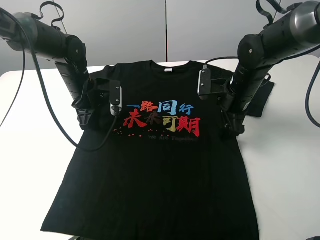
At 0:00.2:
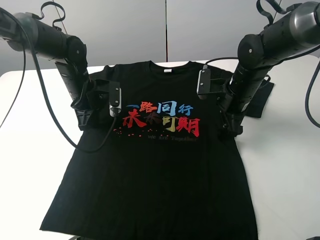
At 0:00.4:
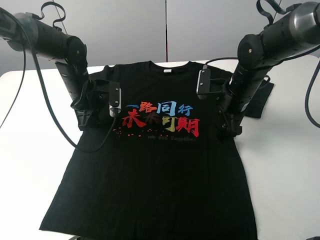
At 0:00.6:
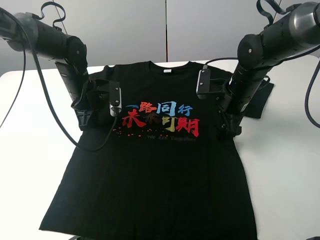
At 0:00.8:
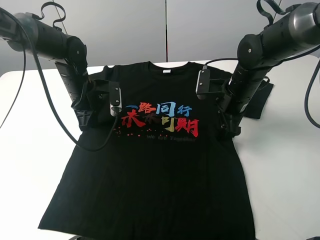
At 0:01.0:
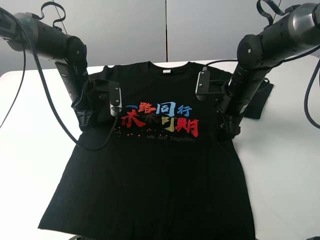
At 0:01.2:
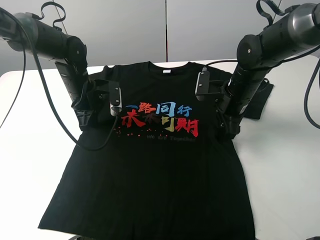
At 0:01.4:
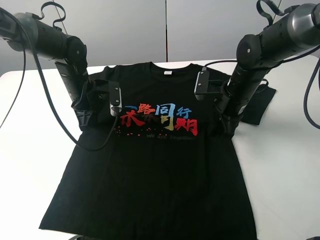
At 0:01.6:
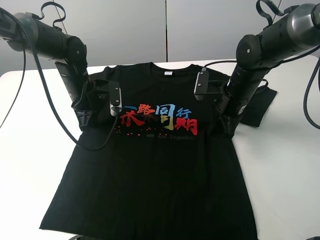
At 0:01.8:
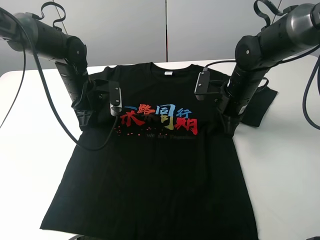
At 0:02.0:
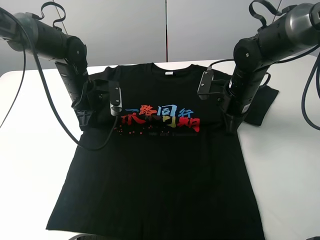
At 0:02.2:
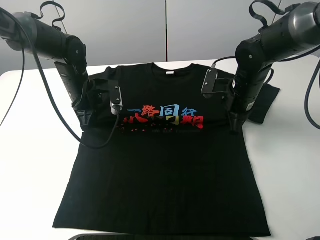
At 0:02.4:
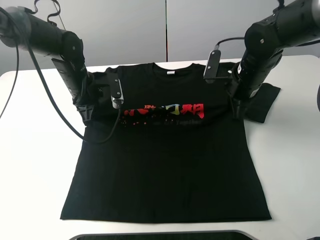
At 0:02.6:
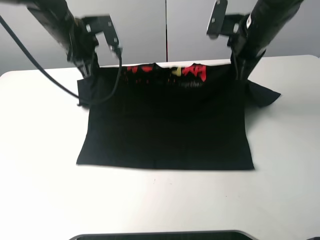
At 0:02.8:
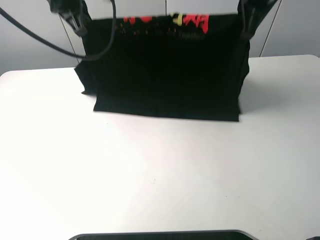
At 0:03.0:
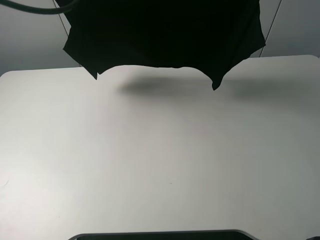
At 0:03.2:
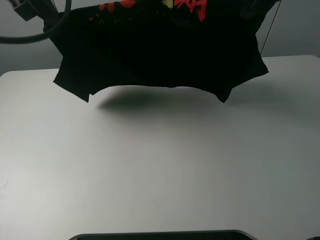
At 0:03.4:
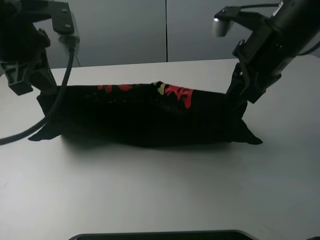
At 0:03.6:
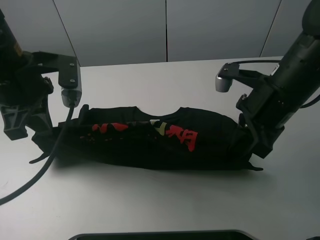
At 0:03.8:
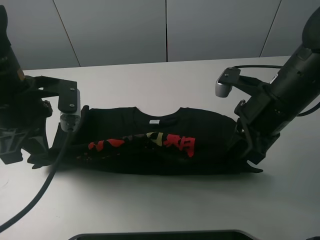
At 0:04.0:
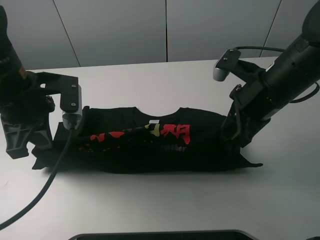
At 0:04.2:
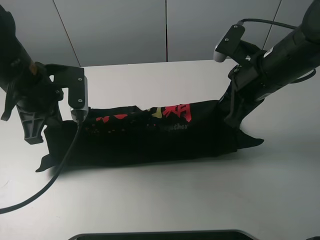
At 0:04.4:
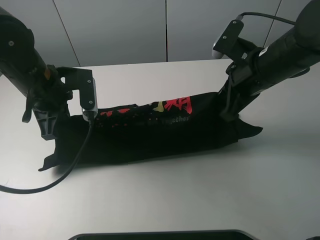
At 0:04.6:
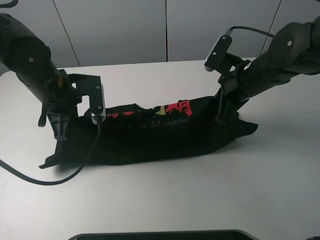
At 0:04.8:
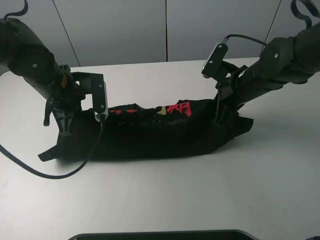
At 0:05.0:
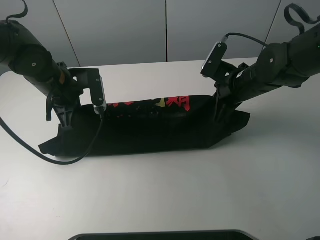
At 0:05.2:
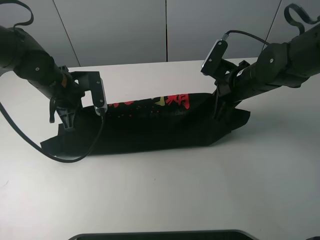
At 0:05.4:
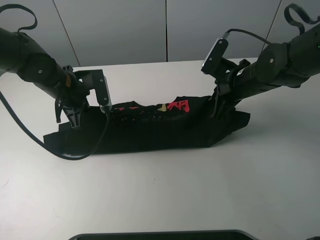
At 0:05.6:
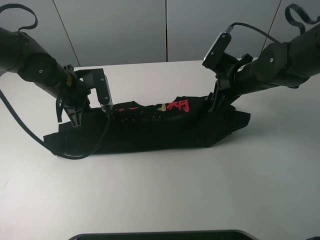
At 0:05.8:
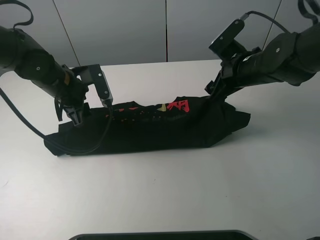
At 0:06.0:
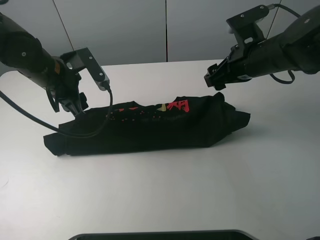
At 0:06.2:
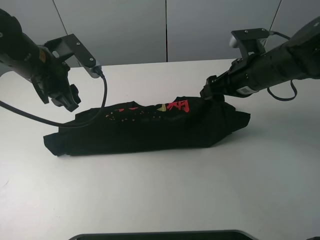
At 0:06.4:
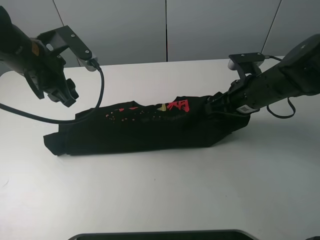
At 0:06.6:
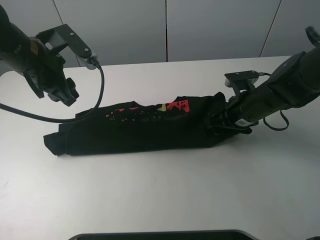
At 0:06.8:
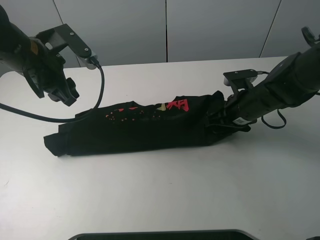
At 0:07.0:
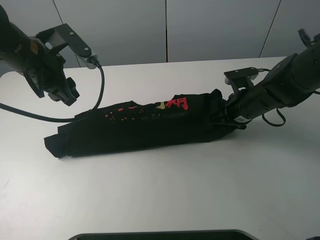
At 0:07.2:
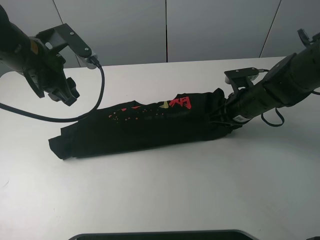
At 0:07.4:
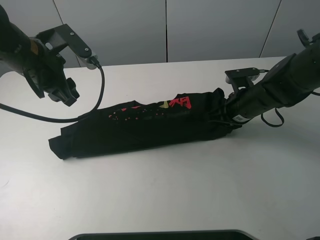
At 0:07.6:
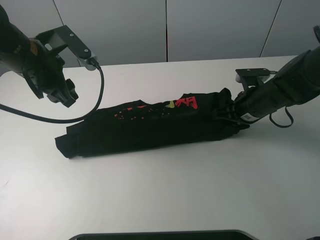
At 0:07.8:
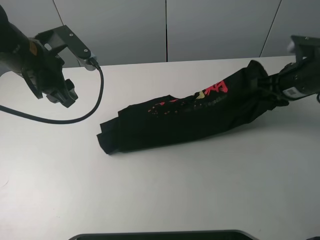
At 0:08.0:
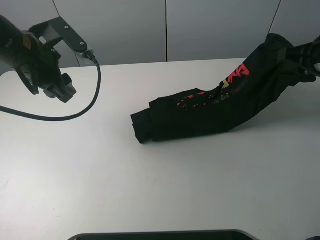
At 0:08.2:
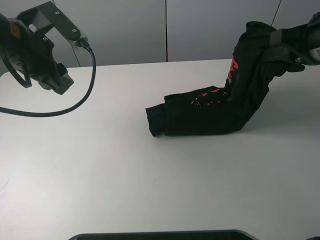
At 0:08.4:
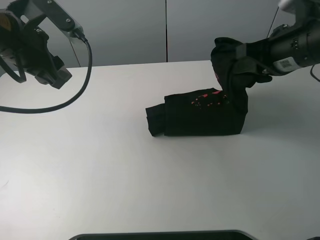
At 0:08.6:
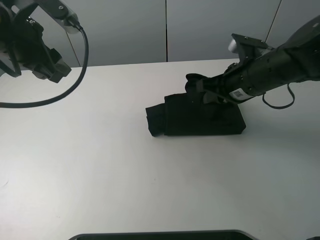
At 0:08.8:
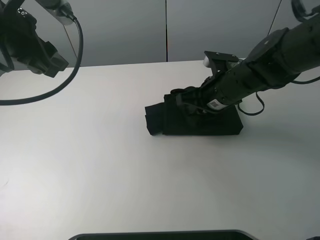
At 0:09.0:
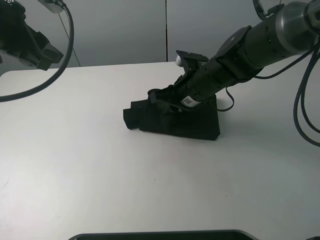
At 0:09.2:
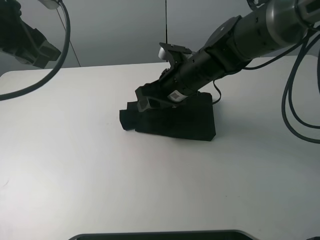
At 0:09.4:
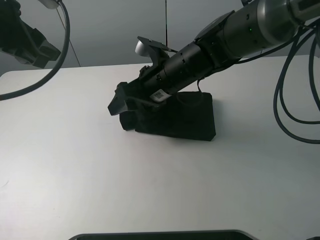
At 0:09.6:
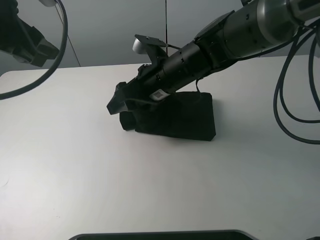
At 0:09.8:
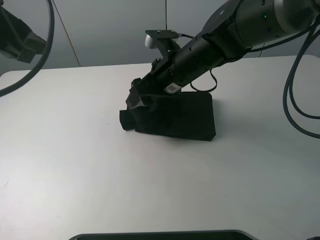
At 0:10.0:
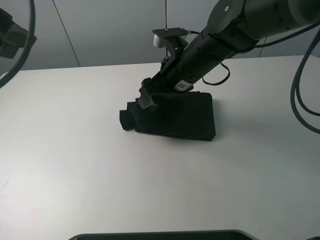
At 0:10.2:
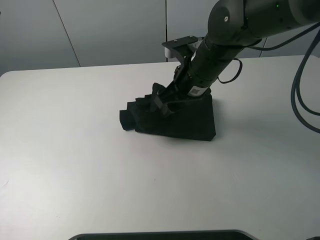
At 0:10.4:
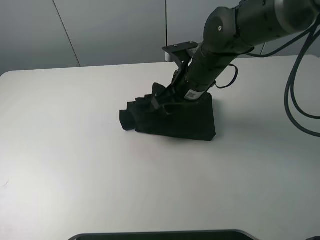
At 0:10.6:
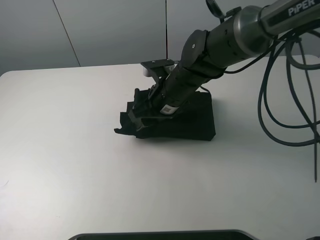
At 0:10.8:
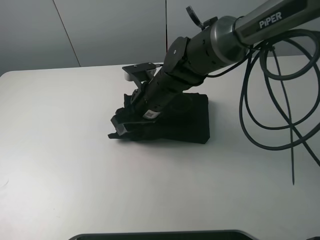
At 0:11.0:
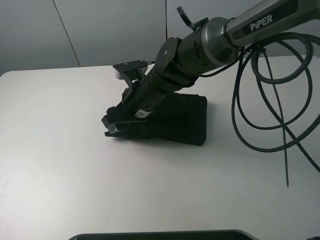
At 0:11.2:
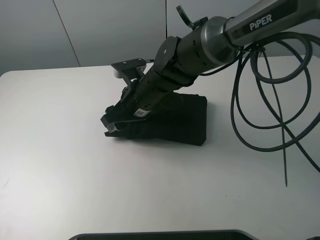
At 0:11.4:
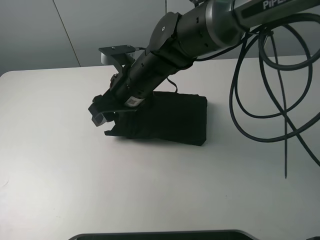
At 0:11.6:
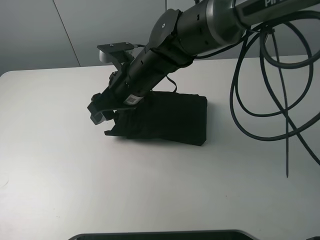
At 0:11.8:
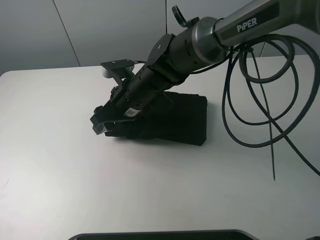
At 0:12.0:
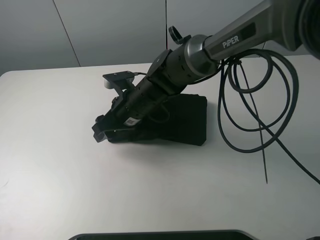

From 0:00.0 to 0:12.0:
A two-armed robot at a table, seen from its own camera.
Task of the whole recording: fold the clothes on the table.
Step, from 0:01.8 to 0:05.6: Fold the black T-shirt downward with the left gripper.
Step, from 0:06.0 to 0:07.4: Grasp the black T-shirt with the right gripper.
Step, from 0:07.6 to 0:11.2: Fold the black T-shirt from right to left with right gripper.
From 0:00.0 to 0:01.6: The right gripper closes, while the left gripper closes up.
From 0:01.6 to 0:03.0: Both grippers move upward, approximately 30 cm.
From 0:03.0 to 0:04.4: The grippers both shift downward by some 20 cm.
From 0:04.4 to 0:06.0: The right gripper opens up. Meanwhile the left gripper opens up.
From 0:06.0 to 0:07.6: The right gripper moves downward, approximately 10 cm, and closes its fingers.
From 0:07.6 to 0:09.0: The left gripper shifts approximately 10 cm upward, while the right gripper heads to the left, covering about 15 cm.
From 0:09.0 to 0:10.4: The left gripper goes about 10 cm upward, backward and to the left. The right gripper opens up.
From 0:10.4 to 0:12.0: The right gripper shifts about 15 cm to the left and downward.

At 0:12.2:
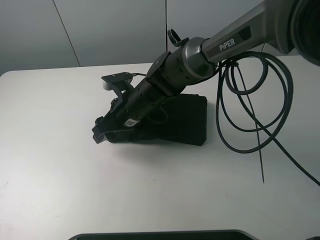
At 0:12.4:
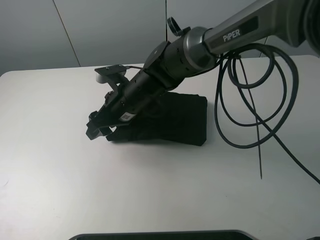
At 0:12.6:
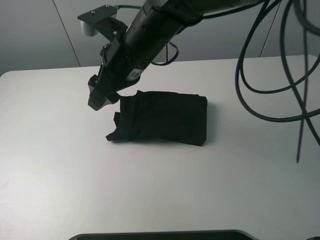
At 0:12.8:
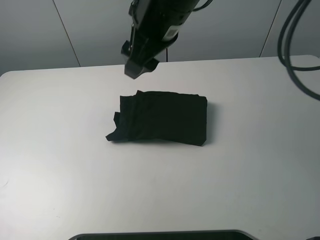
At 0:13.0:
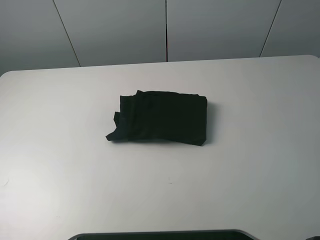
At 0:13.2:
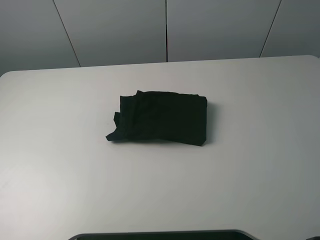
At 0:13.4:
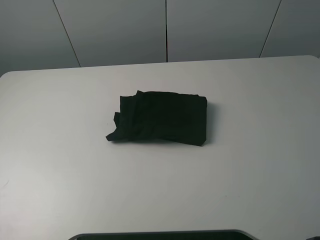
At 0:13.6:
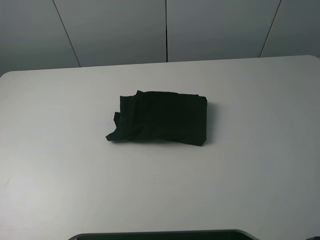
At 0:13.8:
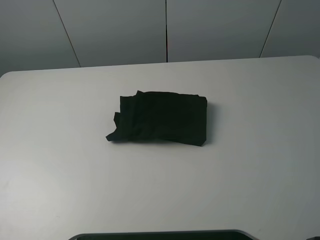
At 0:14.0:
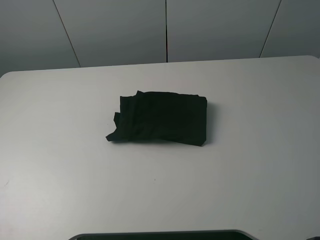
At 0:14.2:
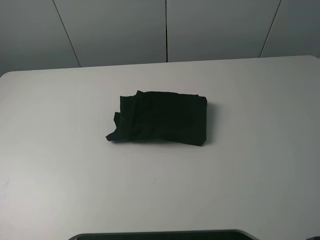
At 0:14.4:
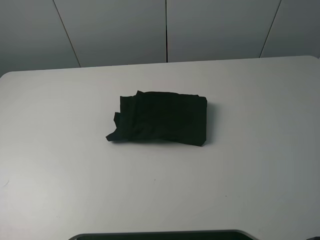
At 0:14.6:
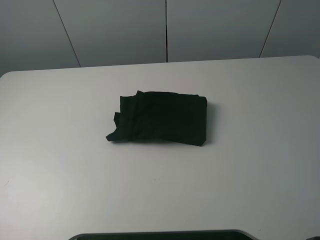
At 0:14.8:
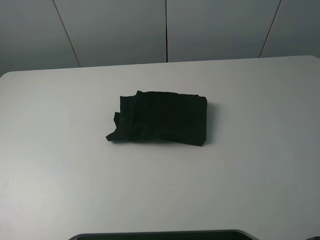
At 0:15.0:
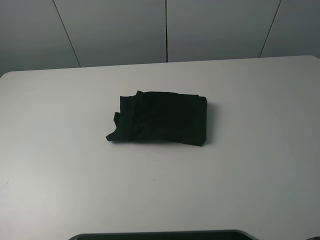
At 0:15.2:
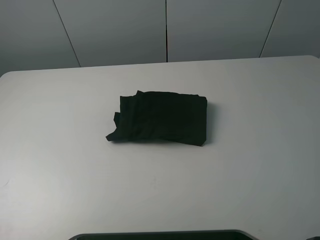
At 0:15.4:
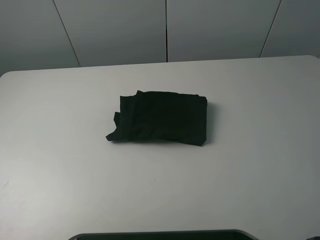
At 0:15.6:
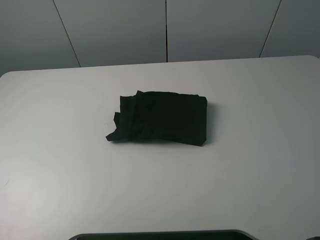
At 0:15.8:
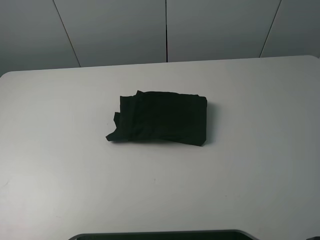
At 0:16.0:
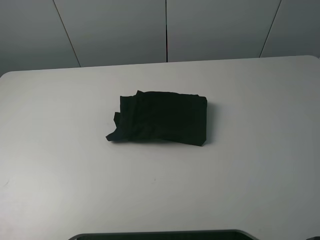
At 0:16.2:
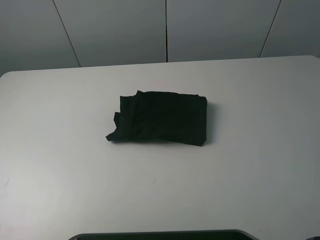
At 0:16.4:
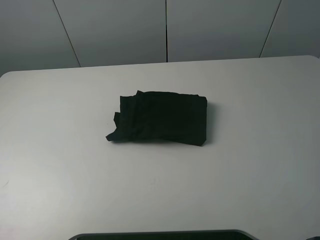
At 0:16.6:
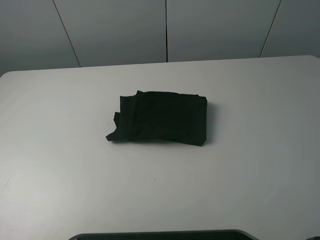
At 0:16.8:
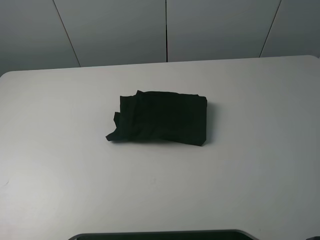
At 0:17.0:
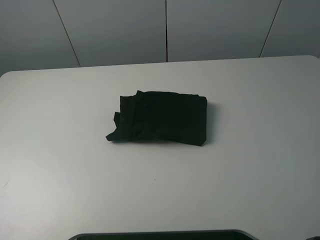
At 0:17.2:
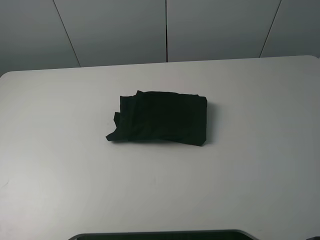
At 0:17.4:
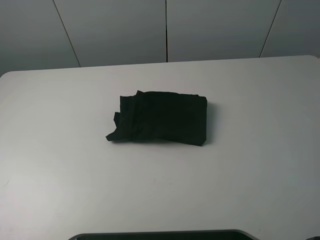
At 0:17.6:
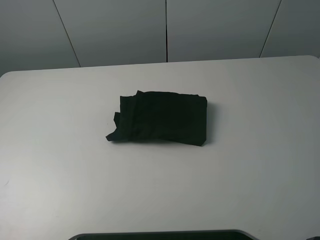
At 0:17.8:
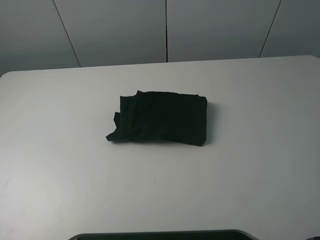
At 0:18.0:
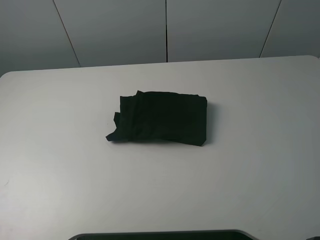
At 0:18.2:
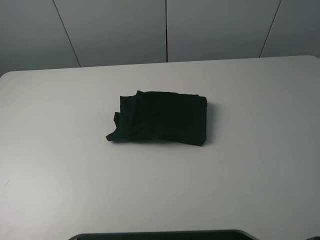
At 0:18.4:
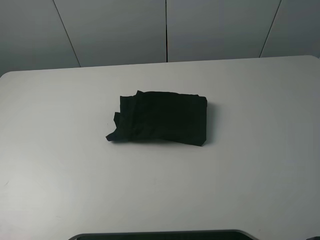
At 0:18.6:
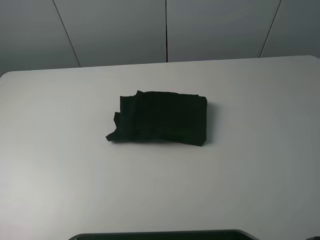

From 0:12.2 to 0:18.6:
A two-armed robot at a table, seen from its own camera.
Task of the whole recording: fold the clothes on the table.
From 0:12.2 to 0:13.8: The right gripper heads to the right, upward and backward, covering some 70 cm. The left gripper is displaced backward and to the left by about 25 cm.
From 0:17.0 to 0:18.6: Both grippers stay about where they are.
